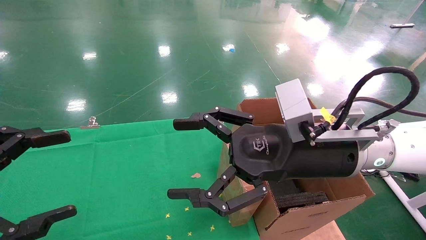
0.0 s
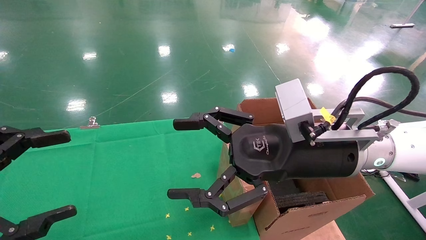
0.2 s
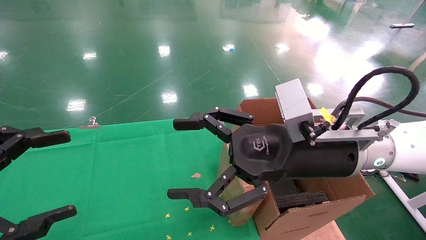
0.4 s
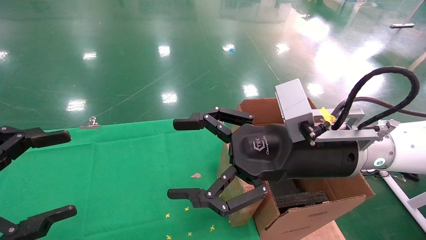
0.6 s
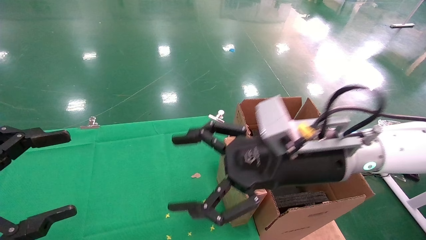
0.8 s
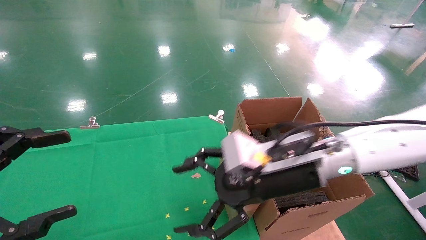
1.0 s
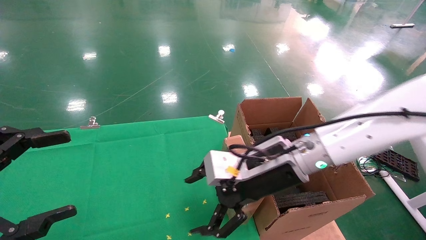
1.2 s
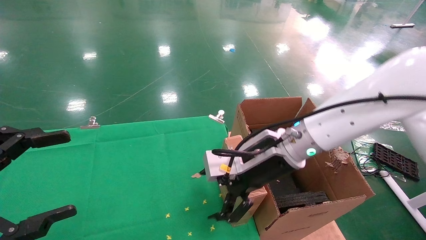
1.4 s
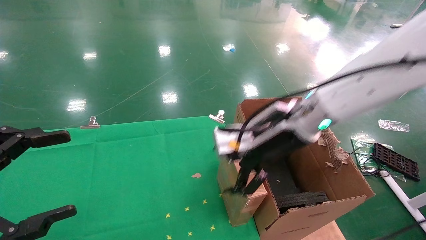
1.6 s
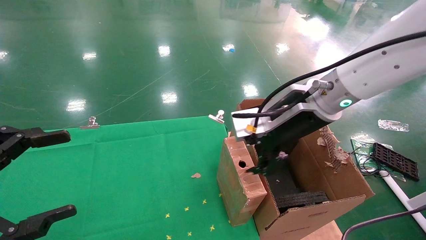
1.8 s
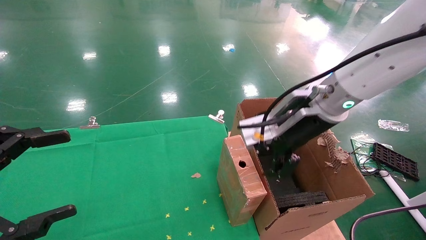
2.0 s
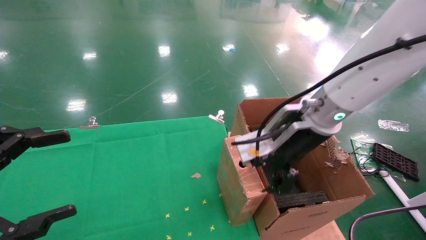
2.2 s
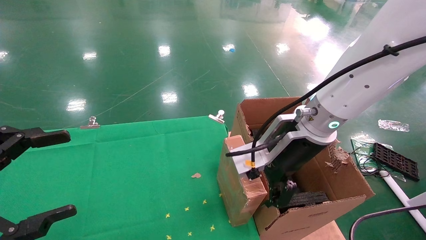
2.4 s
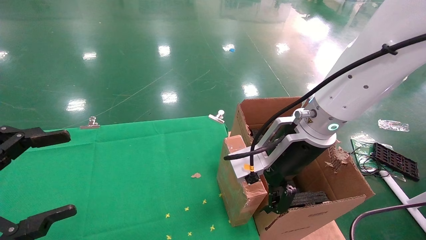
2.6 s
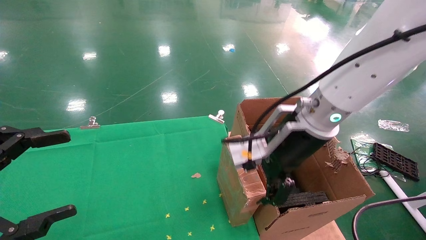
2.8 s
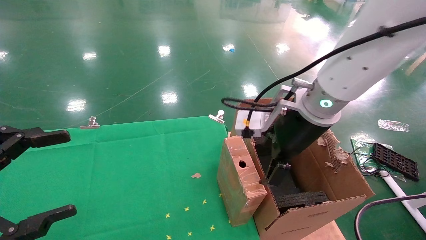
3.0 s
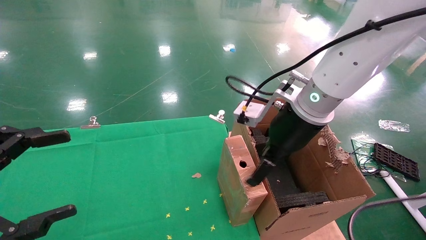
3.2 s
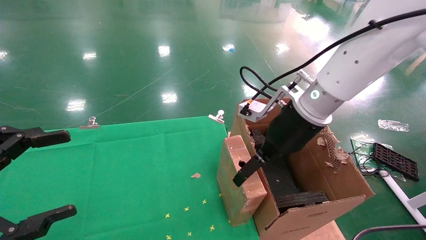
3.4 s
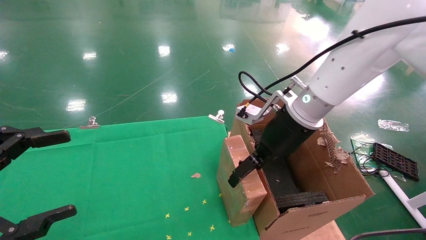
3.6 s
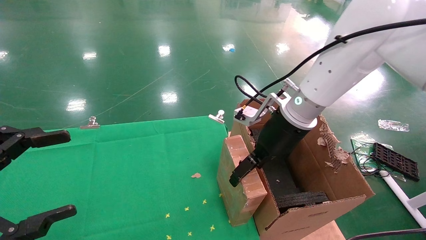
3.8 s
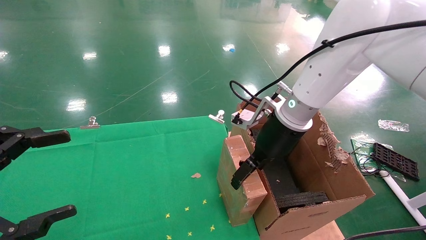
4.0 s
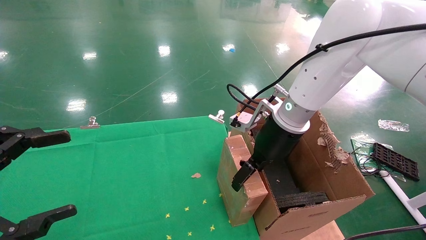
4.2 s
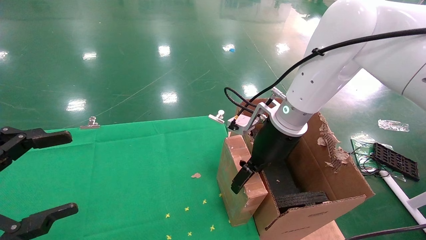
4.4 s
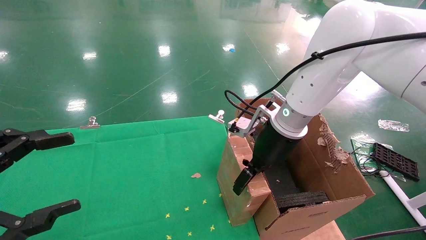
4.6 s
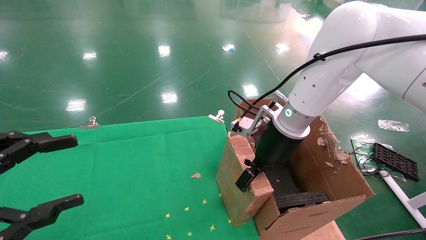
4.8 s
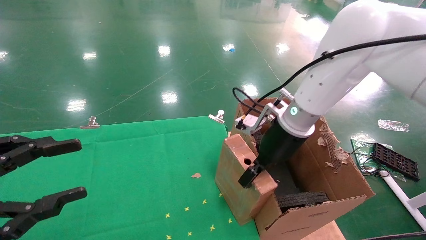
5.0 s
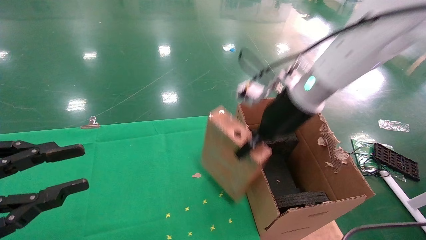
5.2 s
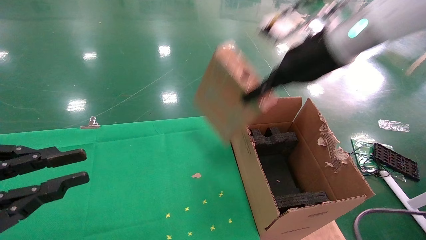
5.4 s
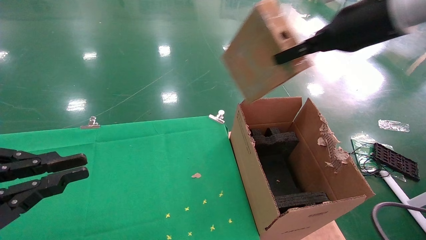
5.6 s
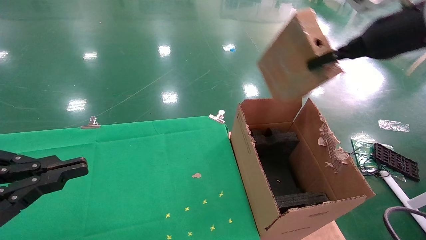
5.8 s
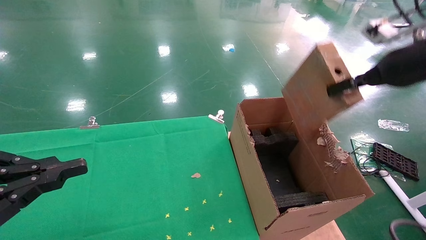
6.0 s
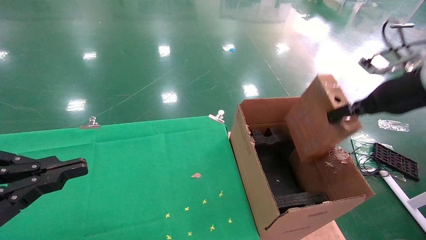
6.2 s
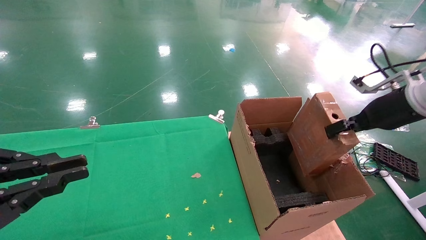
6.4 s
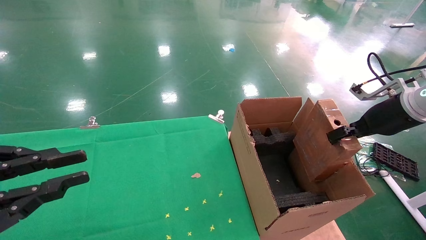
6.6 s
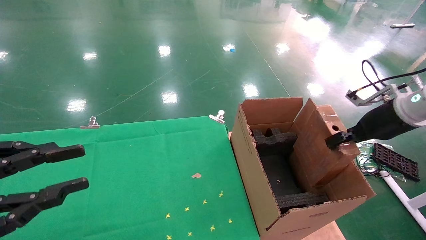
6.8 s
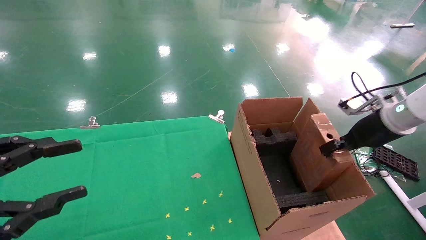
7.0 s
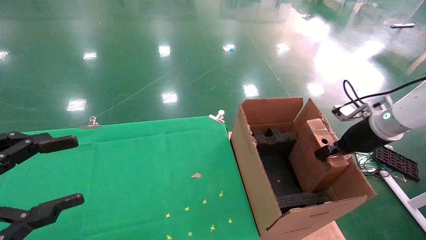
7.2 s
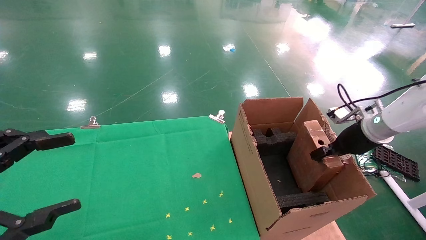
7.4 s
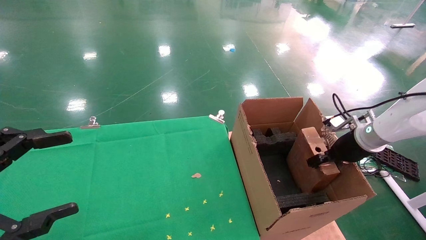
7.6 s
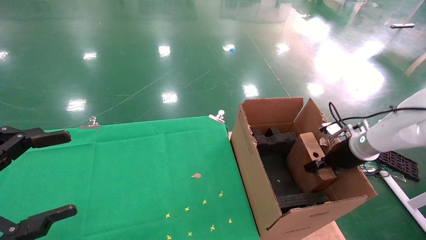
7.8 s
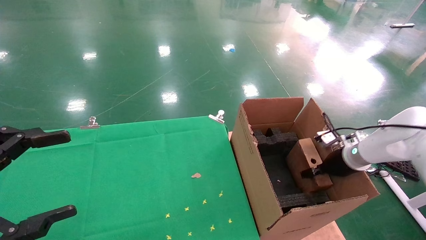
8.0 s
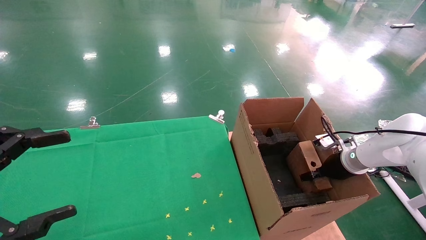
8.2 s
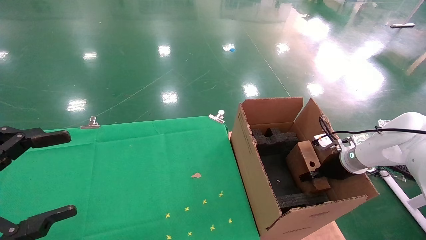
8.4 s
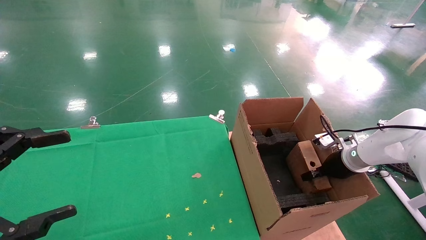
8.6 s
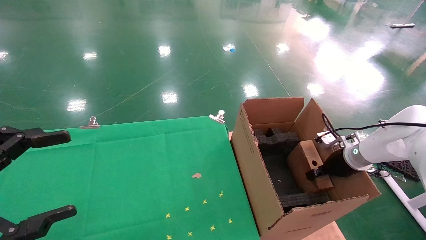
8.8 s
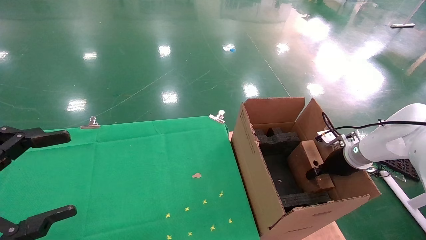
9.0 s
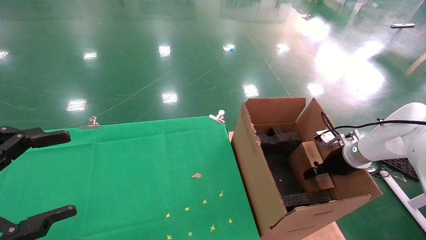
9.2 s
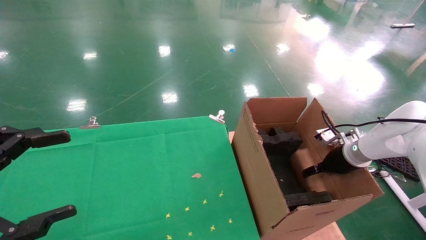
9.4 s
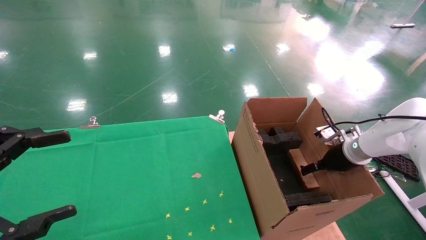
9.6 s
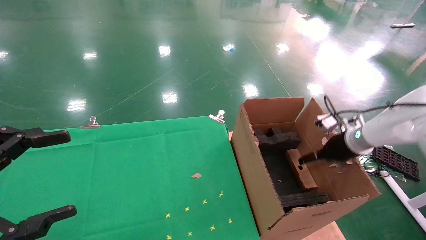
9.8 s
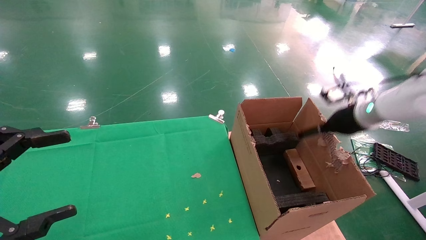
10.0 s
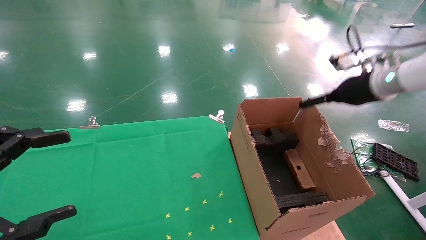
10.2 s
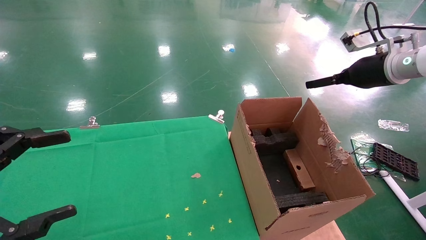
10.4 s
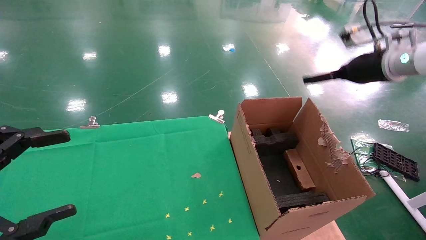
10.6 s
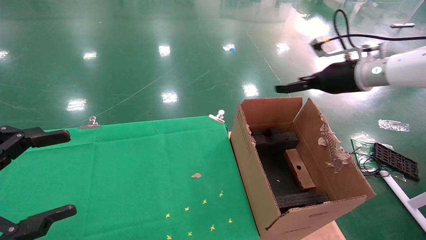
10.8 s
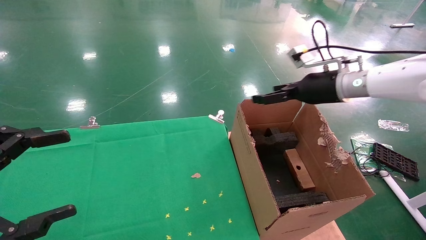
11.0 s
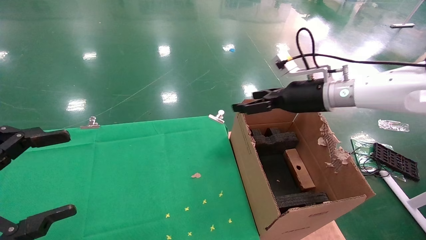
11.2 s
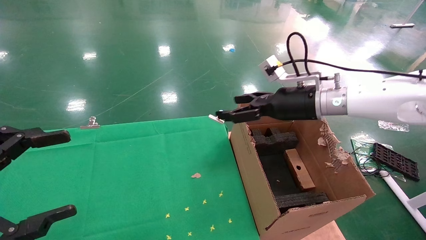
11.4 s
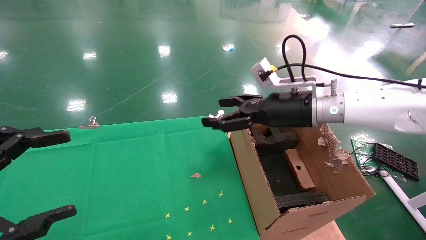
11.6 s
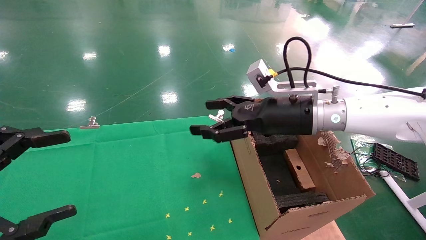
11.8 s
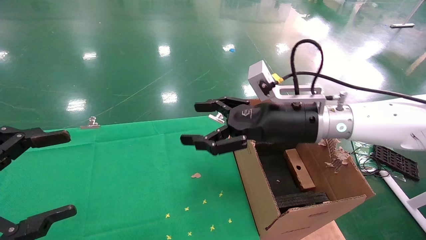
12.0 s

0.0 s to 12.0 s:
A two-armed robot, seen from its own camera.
Task of the whole recording: using a robotic arm to pick up a cardboard box and palace it the carton.
Step, 1.0 to 5.2 s: Pick up the mouse and the power cord paper box.
Step, 5.4 to 10.8 s: Place the mouse and the power cord paper box into the container.
0.0 to 1.6 s: The right gripper moves forward, roughly 5 cm.
3.0 to 4.4 s: The right gripper is displaced forward by about 5 cm.
4.4 to 6.0 s: The left gripper closes up. The right gripper heads to the right and upward, covering roughly 25 cm, and closes its fingers.
6.0 to 7.6 s: The left gripper opens up, while the right gripper travels downward by about 20 cm.
7.6 to 9.0 s: The right gripper heads downward, covering some 5 cm.
9.0 to 10.4 s: The right gripper goes about 20 cm upward, and opens.
10.4 to 12.0 s: The right gripper shifts approximately 20 cm to the left.

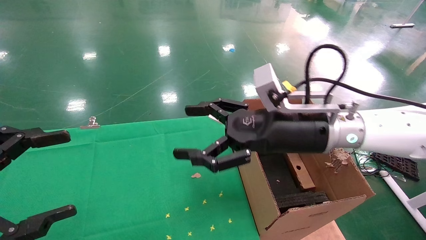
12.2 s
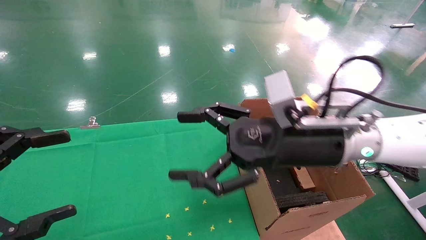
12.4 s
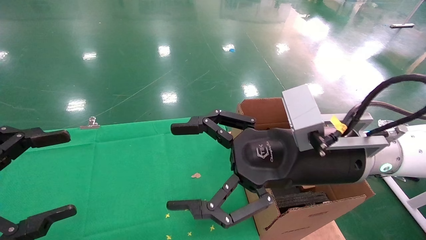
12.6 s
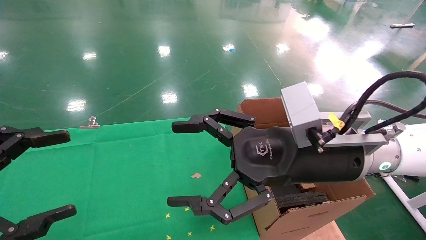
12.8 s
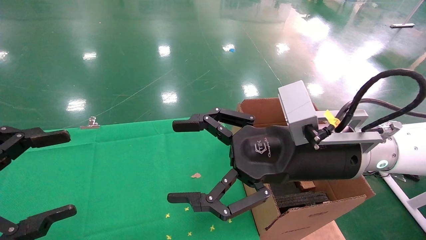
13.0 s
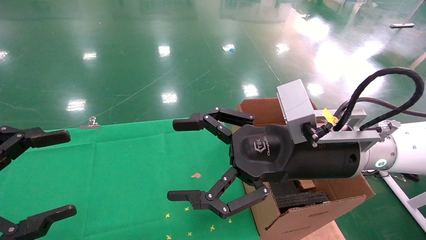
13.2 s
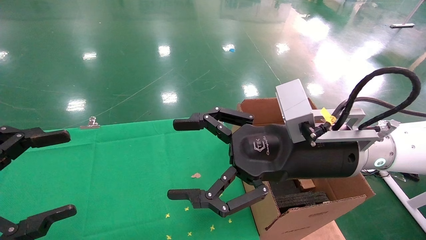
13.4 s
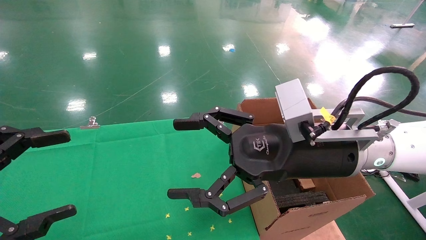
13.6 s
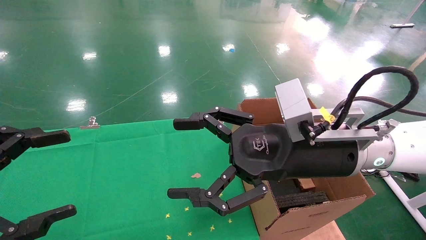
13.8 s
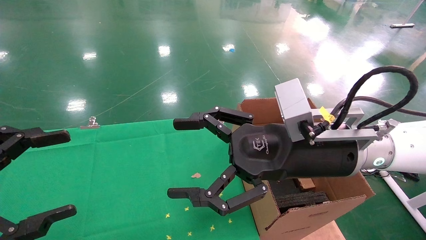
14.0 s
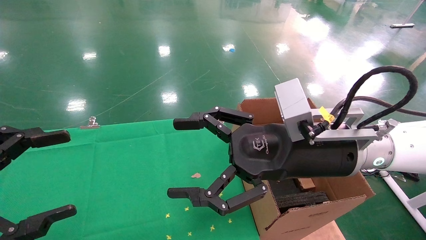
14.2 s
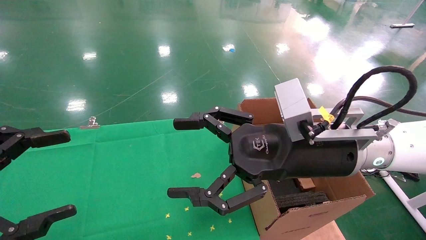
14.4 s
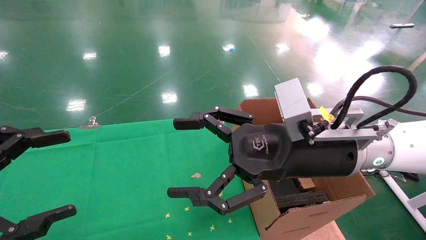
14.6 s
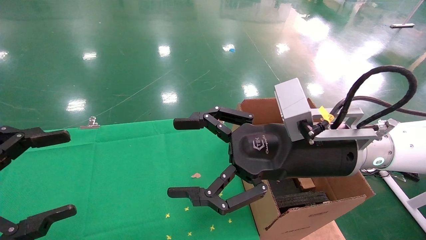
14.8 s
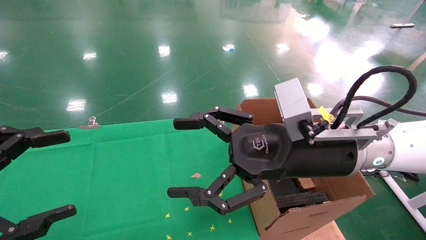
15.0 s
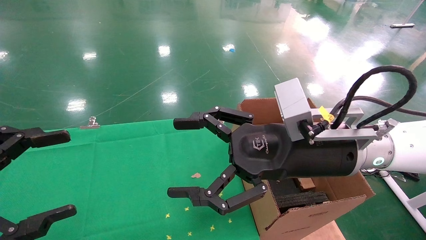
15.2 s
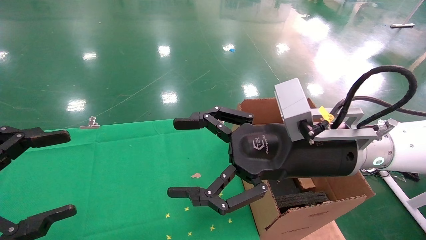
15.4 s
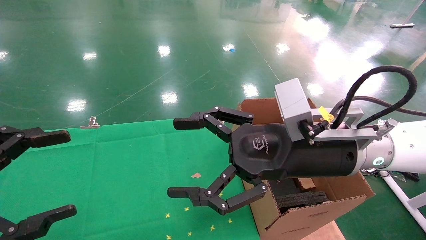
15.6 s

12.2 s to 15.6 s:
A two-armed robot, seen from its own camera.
Task of the whole recording: using a robotic arm to pick up a cardboard box and palace it the carton.
12.2 to 13.8 s: The right gripper moves roughly 5 cm.
13.8 to 15.6 s: Both grippers stay about where they are.
